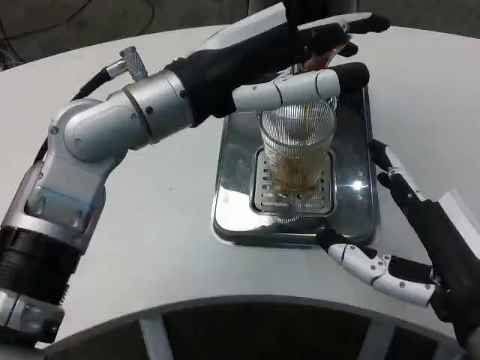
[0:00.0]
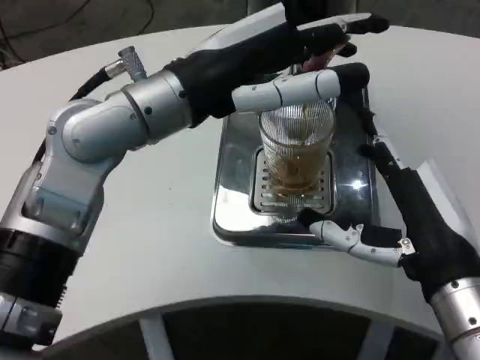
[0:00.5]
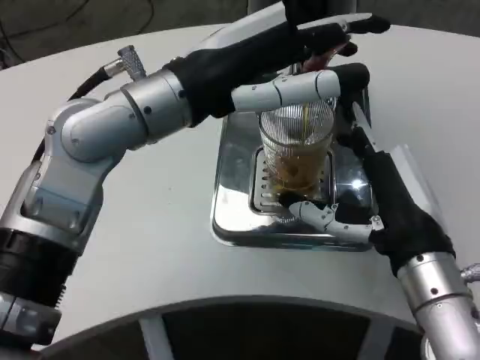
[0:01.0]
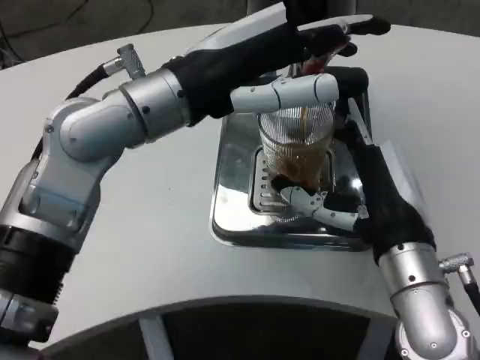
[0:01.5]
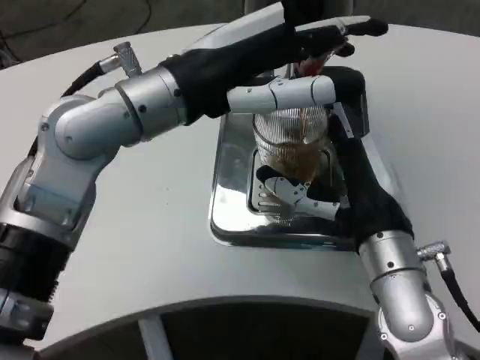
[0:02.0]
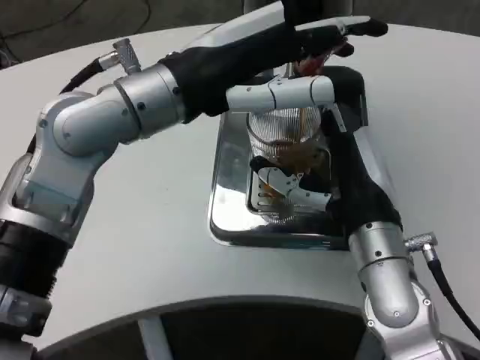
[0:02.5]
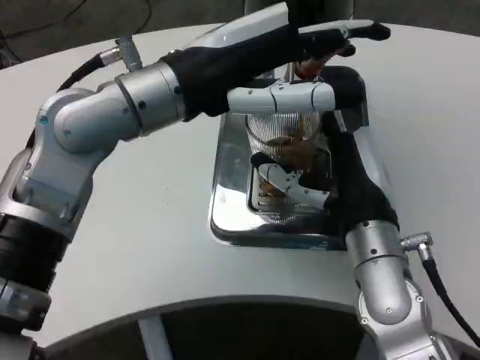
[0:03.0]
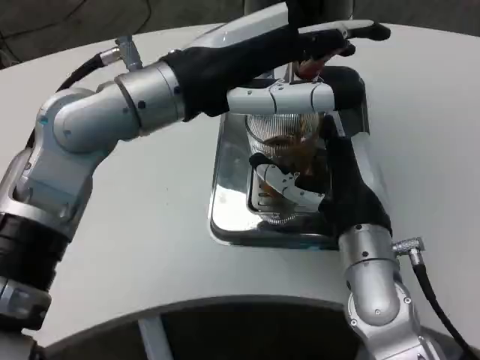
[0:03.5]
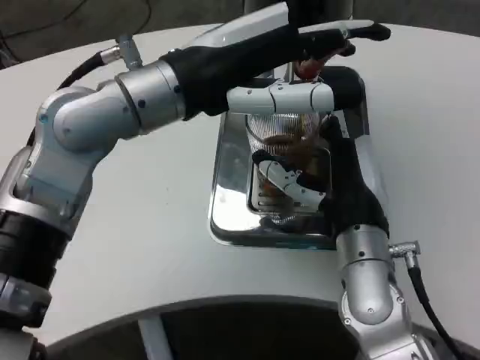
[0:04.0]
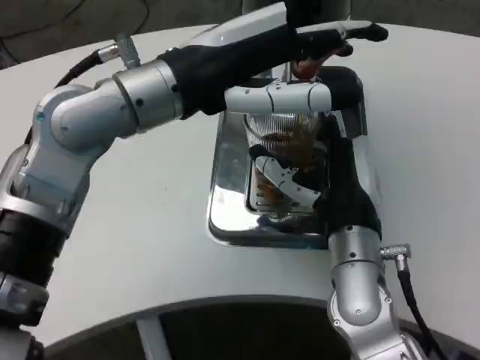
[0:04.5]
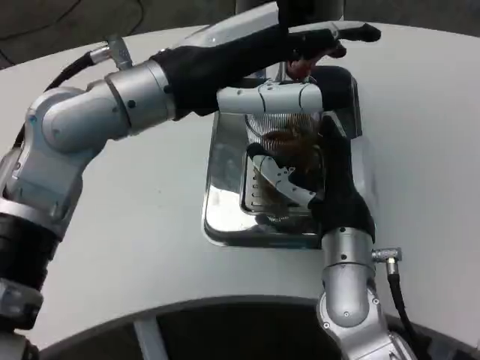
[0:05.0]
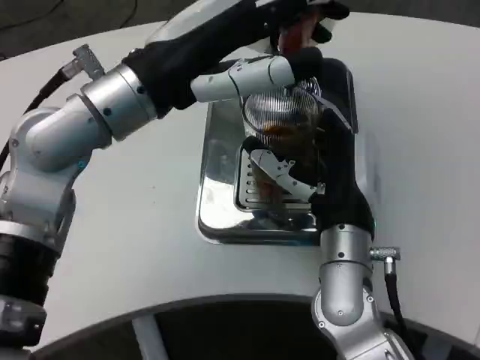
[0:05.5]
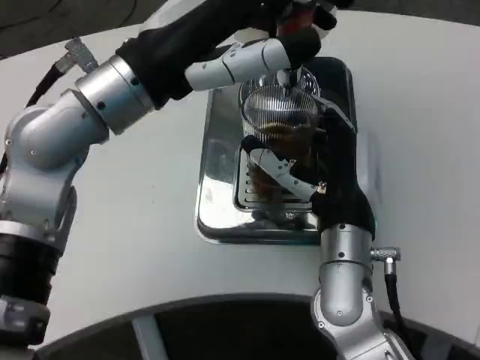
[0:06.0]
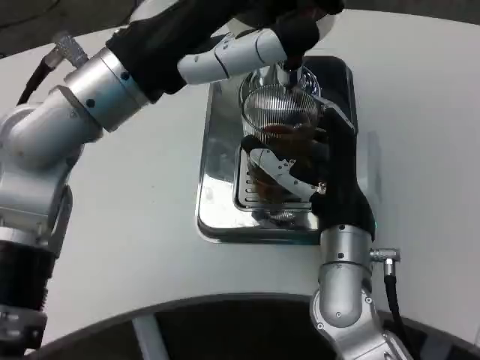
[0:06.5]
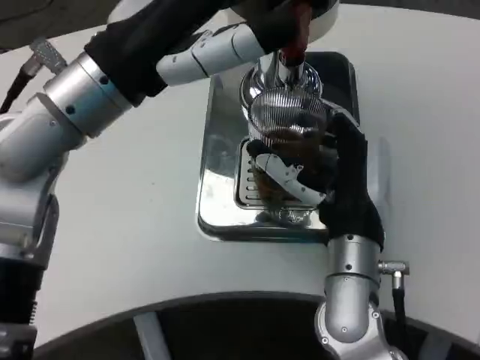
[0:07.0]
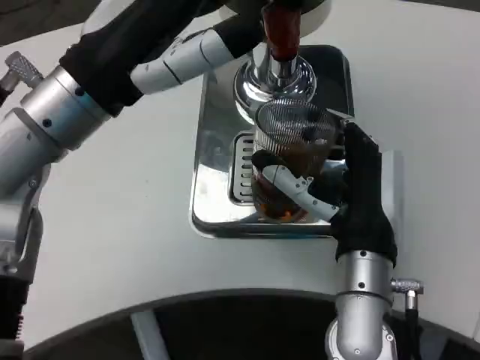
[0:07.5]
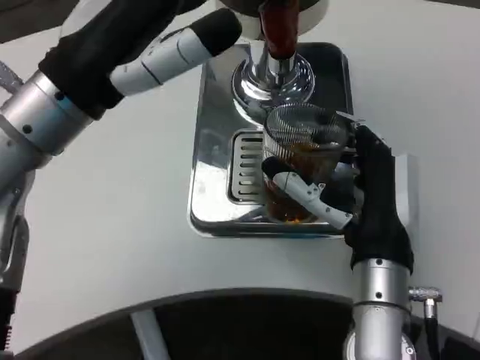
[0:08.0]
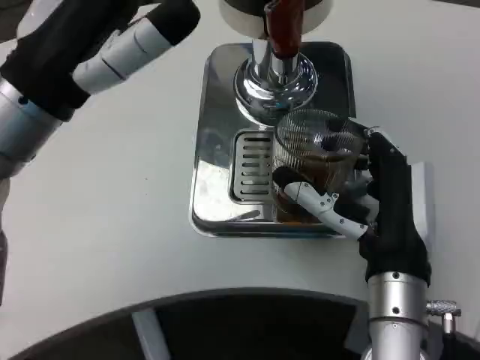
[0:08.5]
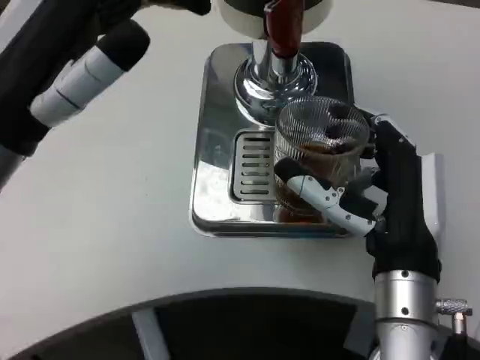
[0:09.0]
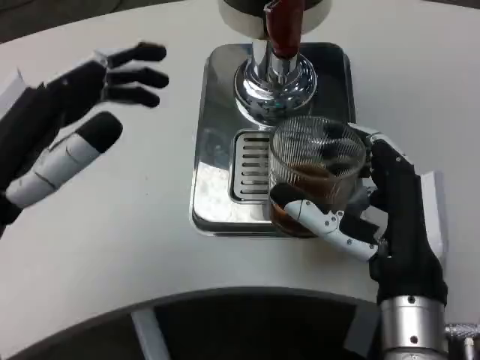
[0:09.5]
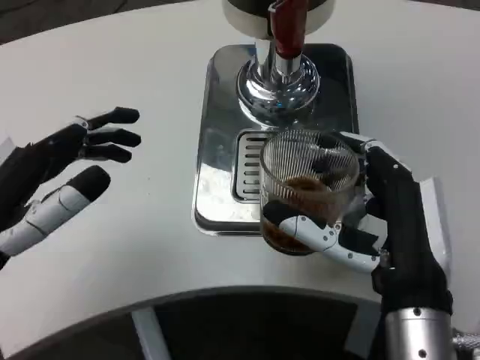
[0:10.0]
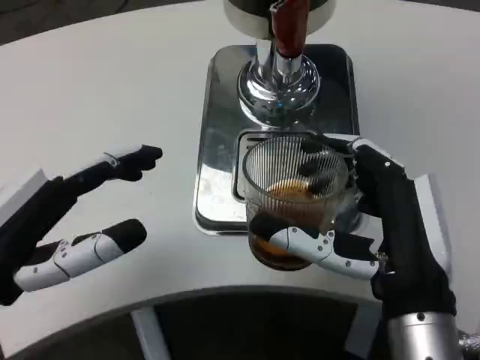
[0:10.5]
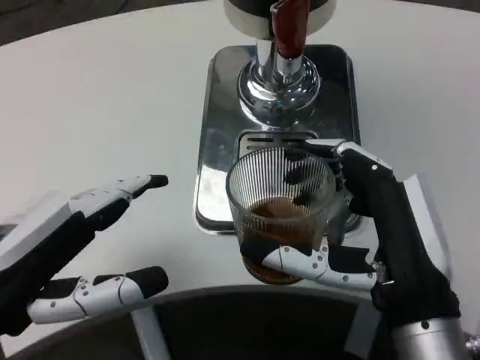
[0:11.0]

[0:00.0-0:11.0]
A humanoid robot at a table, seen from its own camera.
Task of the whole recording: Grasp the cup under the faucet to collect the drink, then remove the cup.
0:00.0 to 0:02.0: The right hand shifts some 10 cm forward and to the left.
0:07.5 to 0:09.0: The left hand ends up approximately 5 cm from where it was.
0:09.0 to 0:11.0: The left hand heads backward and downward, covering some 10 cm; the right hand goes about 5 cm backward.

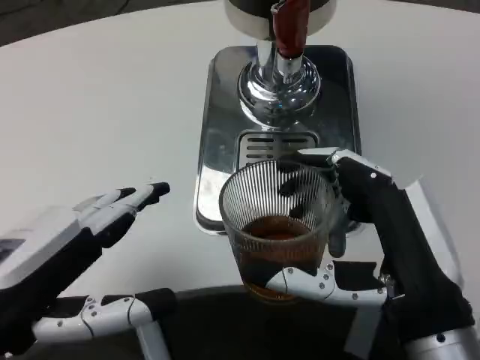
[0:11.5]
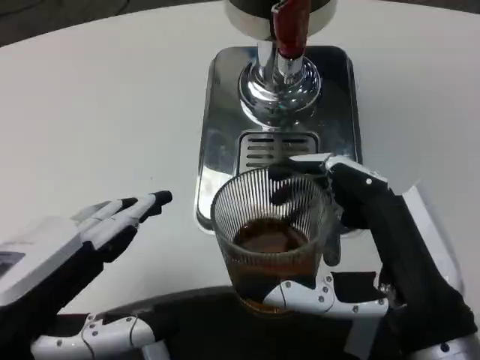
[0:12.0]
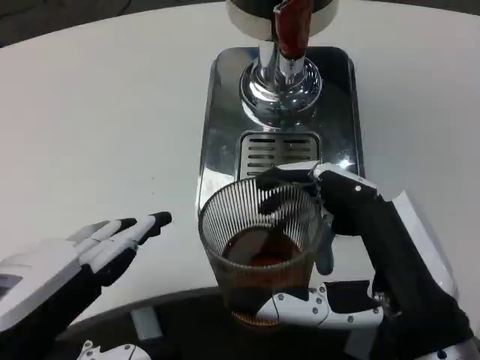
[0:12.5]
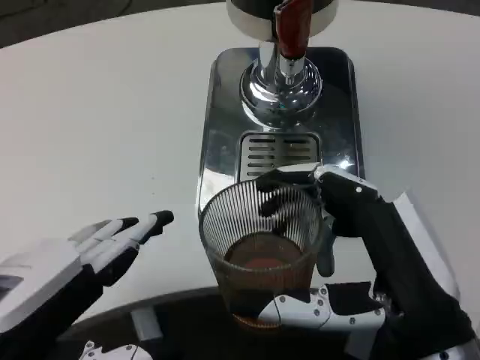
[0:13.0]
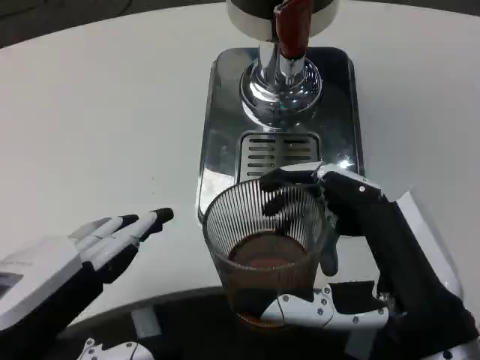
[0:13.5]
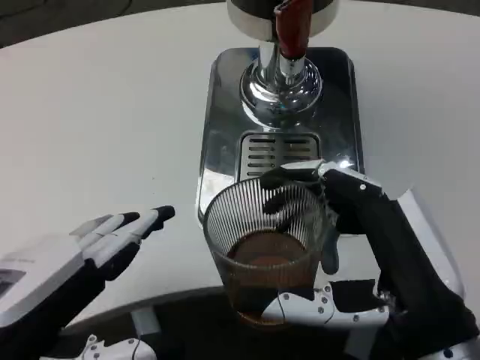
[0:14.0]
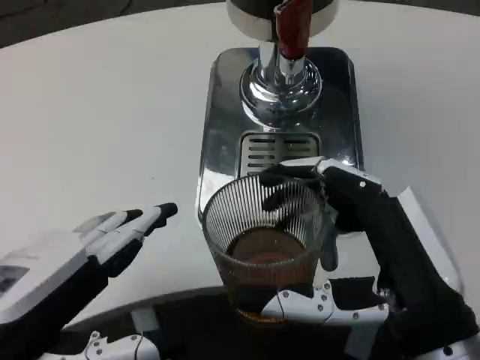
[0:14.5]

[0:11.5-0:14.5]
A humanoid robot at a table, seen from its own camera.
Task of the whole recording: Grasp the cup under the faucet to collect the drink, then remove the cup.
0:13.0 to 0:14.5: Both hands stay put.

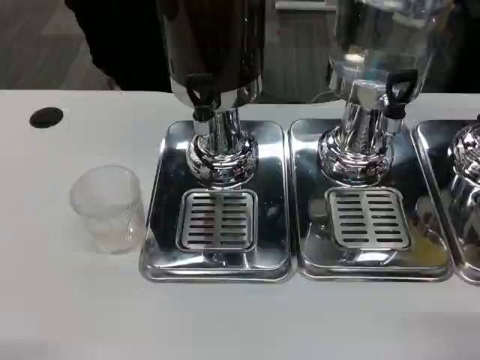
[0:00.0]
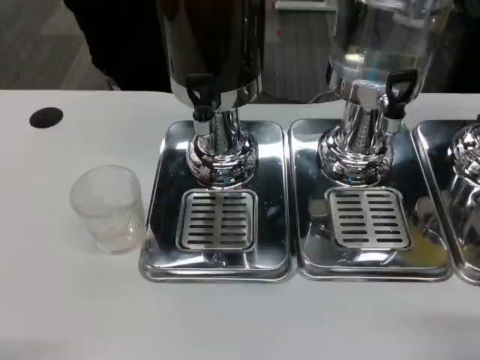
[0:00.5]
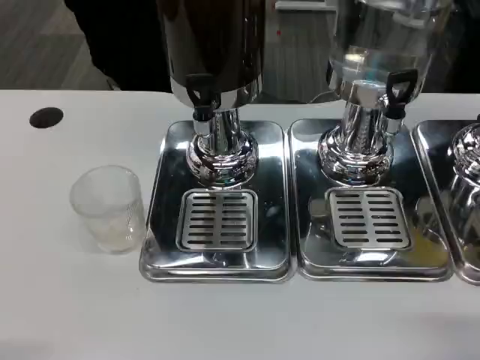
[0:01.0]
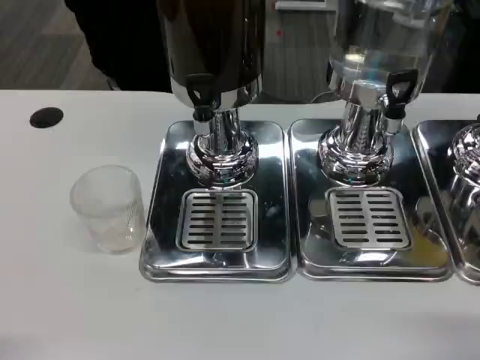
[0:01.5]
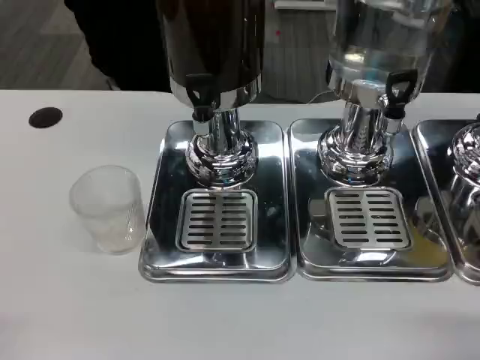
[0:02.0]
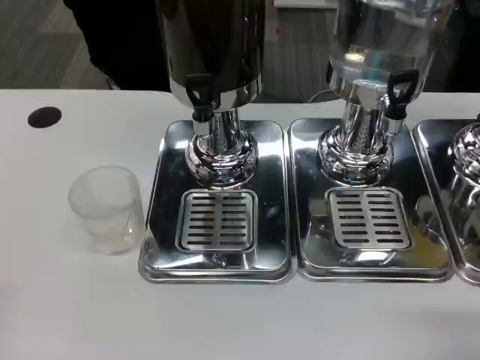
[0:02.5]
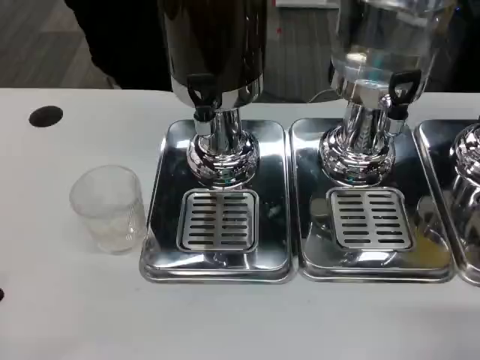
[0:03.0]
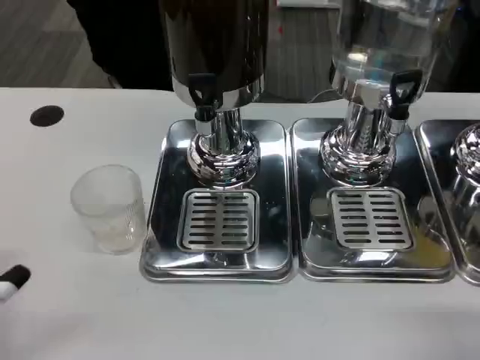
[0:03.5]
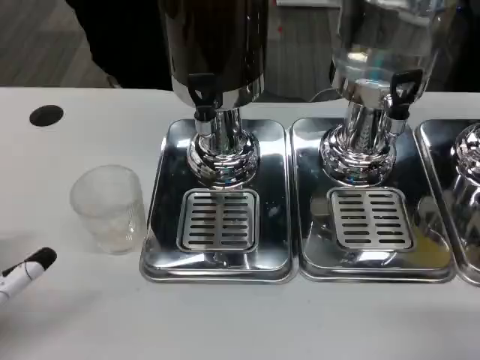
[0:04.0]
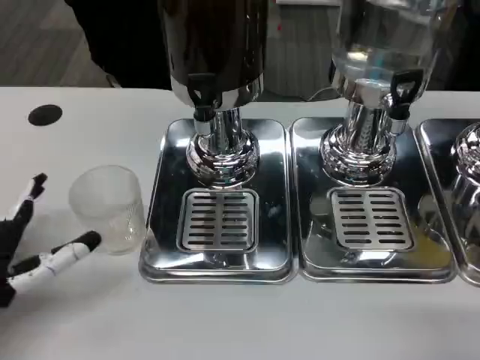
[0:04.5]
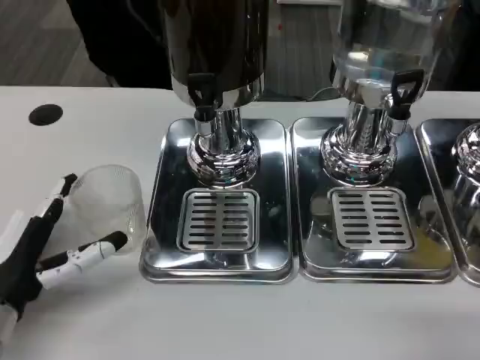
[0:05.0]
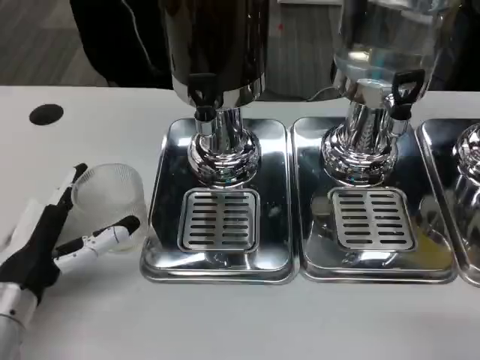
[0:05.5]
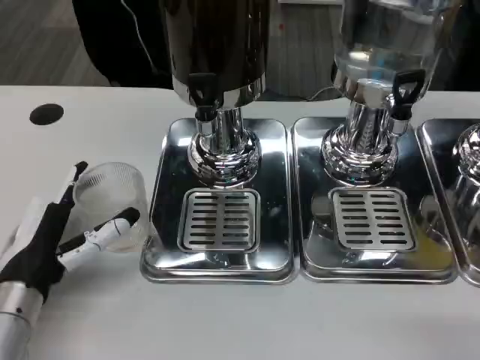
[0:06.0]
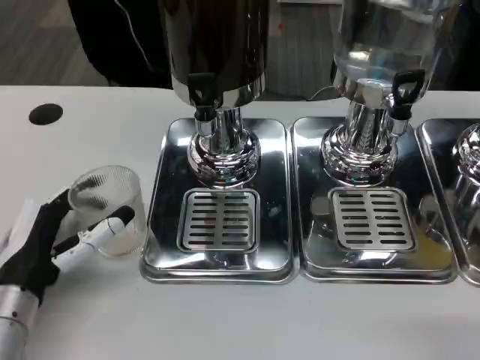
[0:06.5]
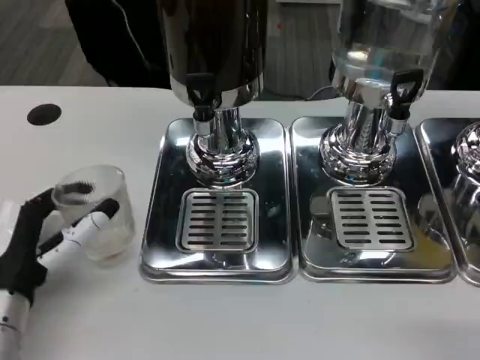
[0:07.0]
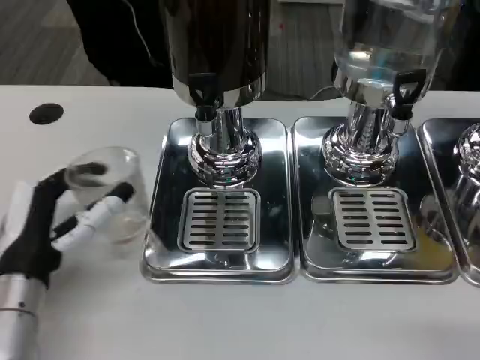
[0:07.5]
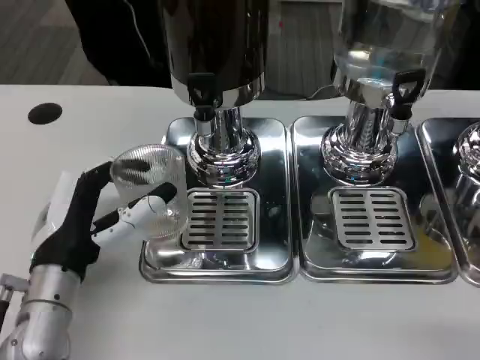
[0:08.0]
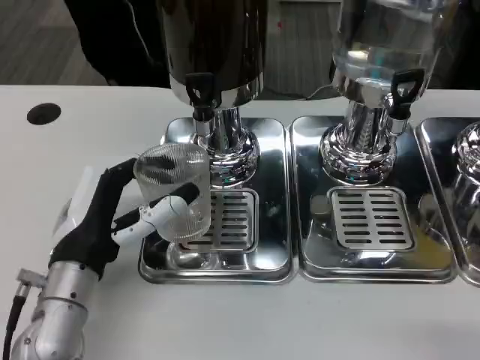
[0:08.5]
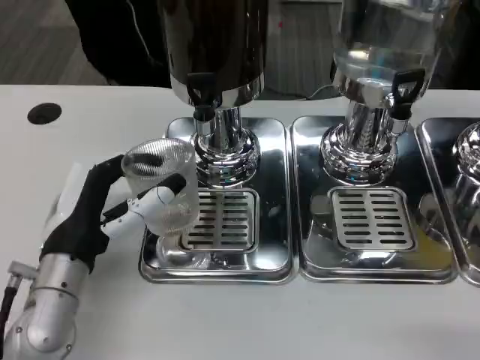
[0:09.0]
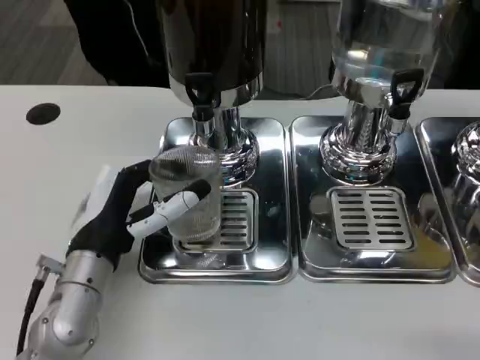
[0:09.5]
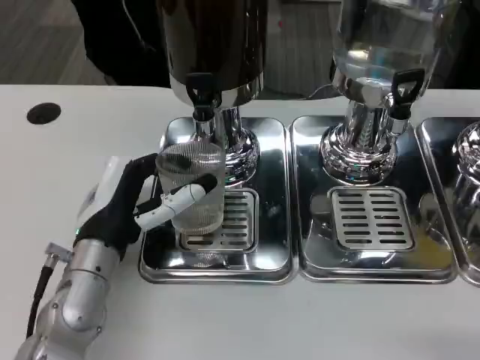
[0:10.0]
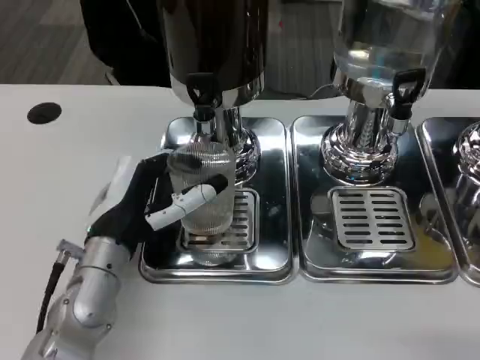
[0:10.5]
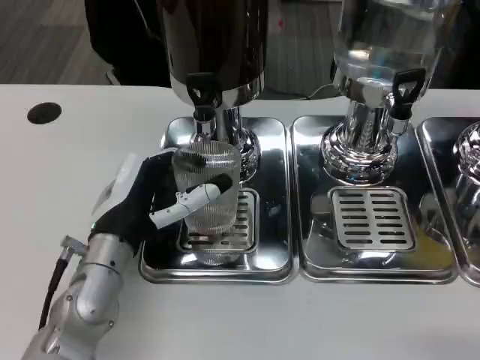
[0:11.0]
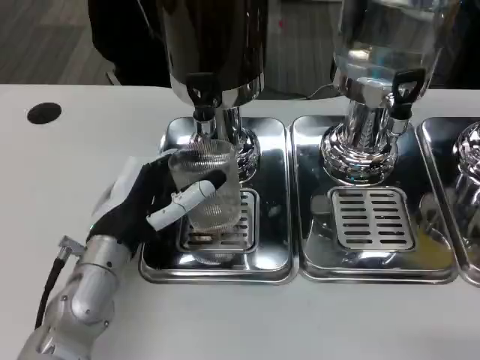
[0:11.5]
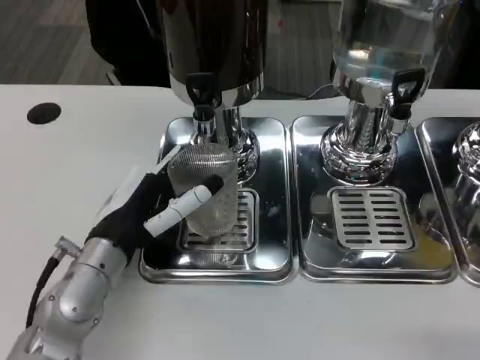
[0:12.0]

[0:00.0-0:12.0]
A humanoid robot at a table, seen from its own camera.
Task of the whole recording: Grasp the cup under the faucet to collect the drink, then remove the cup.
0:02.0 to 0:04.0: The left hand moves forward, approximately 15 cm.
0:04.0 to 0:06.0: The left hand heads forward and to the right, covering roughly 10 cm.
0:06.0 to 0:08.0: The hands move only a little.
0:08.0 to 0:12.0: There are only small adjustments of the hands.
